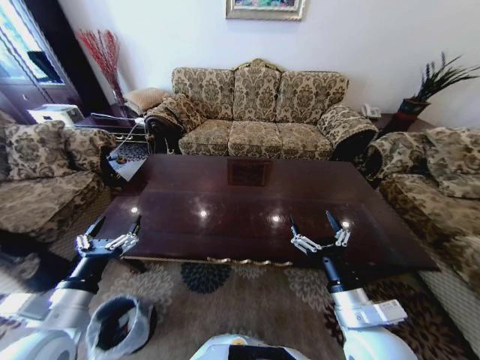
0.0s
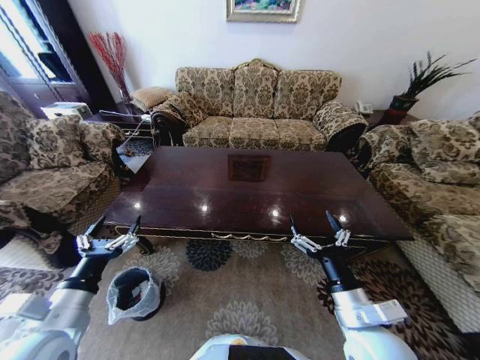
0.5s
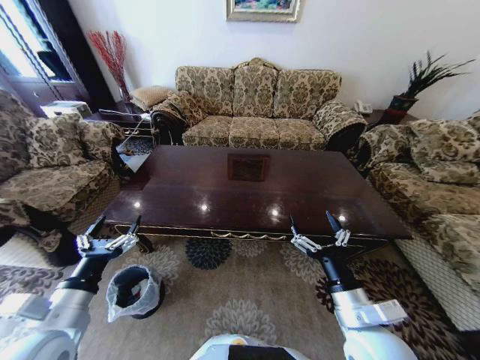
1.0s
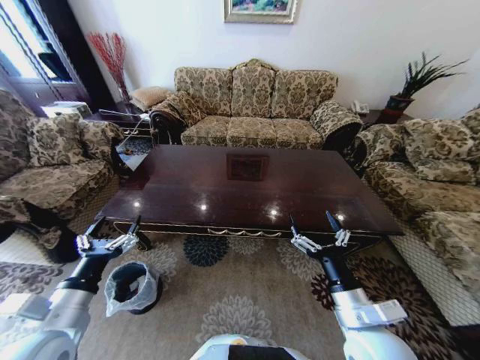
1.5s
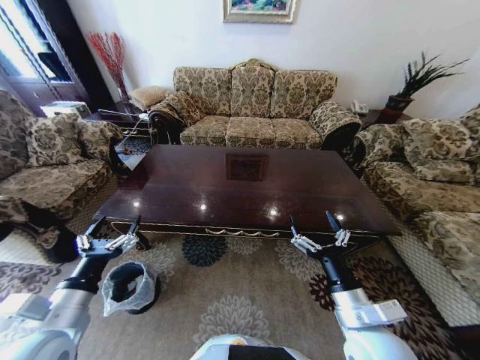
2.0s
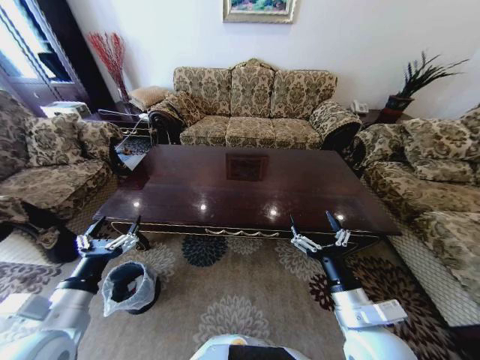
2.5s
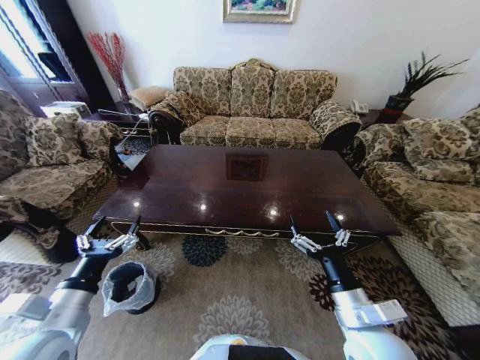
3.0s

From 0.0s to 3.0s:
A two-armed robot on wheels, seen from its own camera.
Task of the whole recording: Move to the front of the table and place the trash on the table into the trash bin.
From 1.5s to 3.0s: Both grippers stay about where they are.
